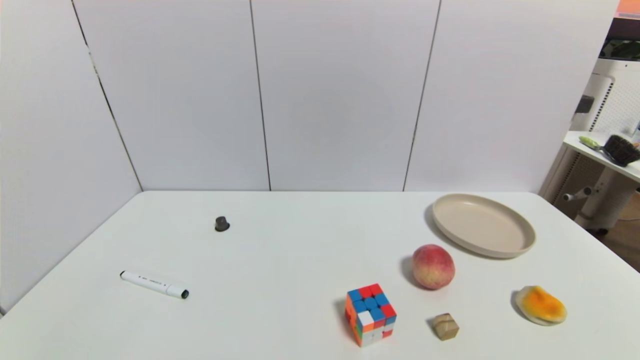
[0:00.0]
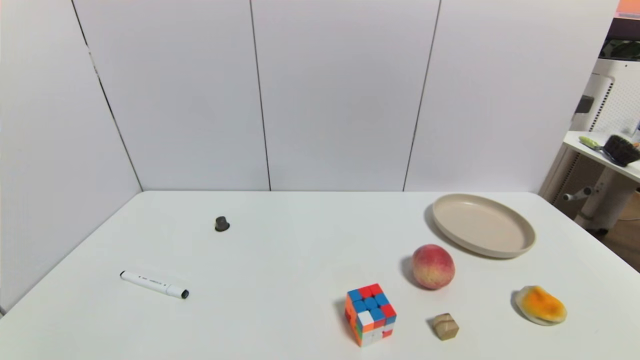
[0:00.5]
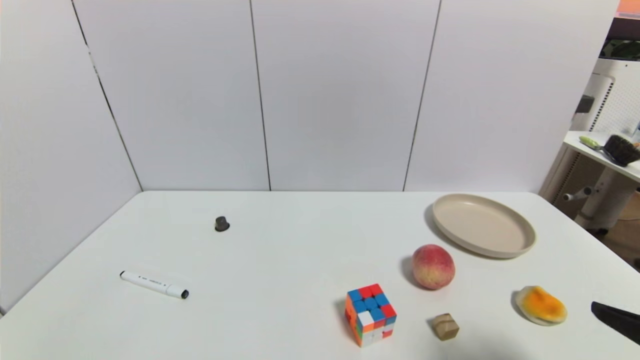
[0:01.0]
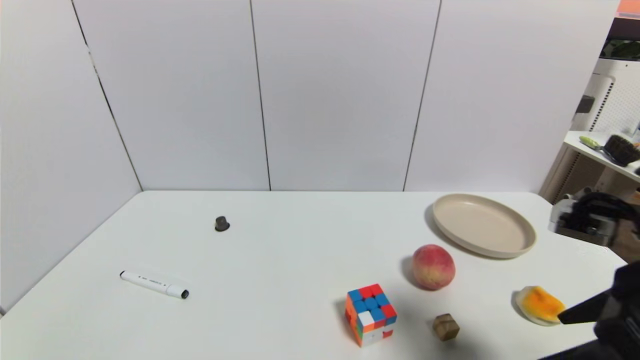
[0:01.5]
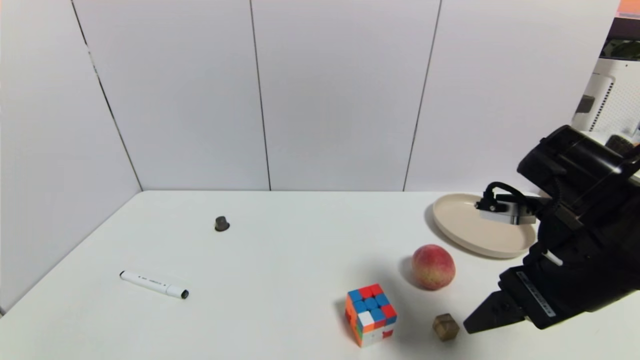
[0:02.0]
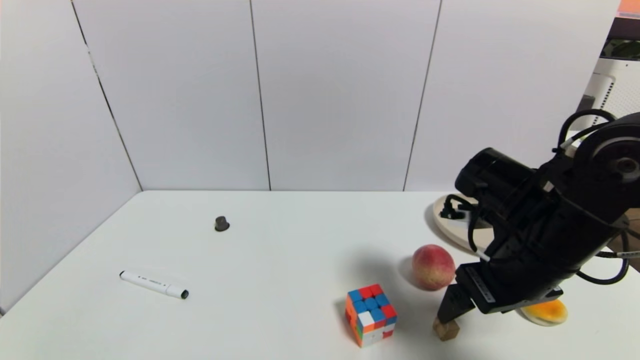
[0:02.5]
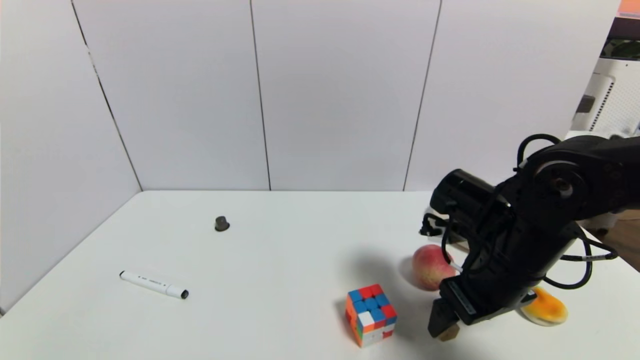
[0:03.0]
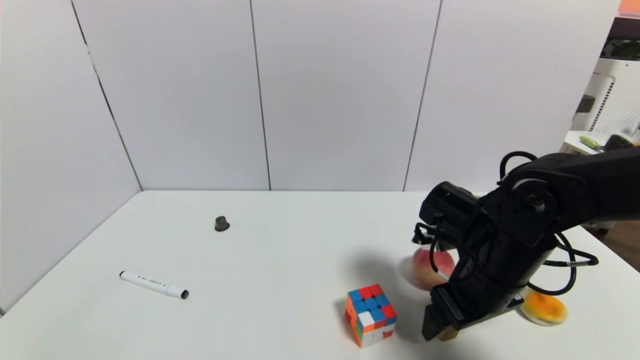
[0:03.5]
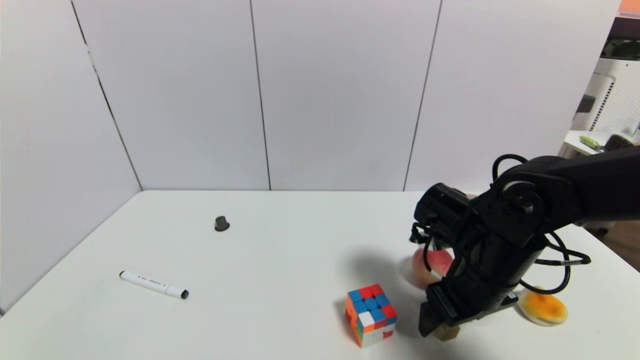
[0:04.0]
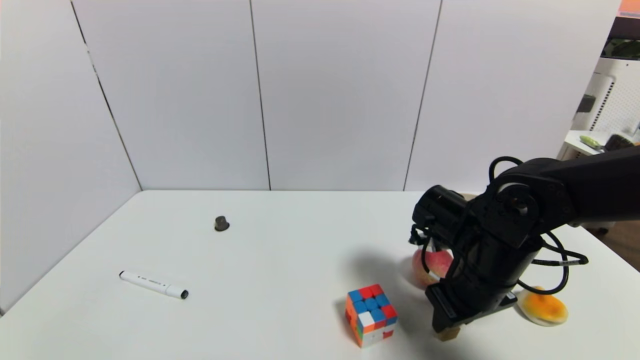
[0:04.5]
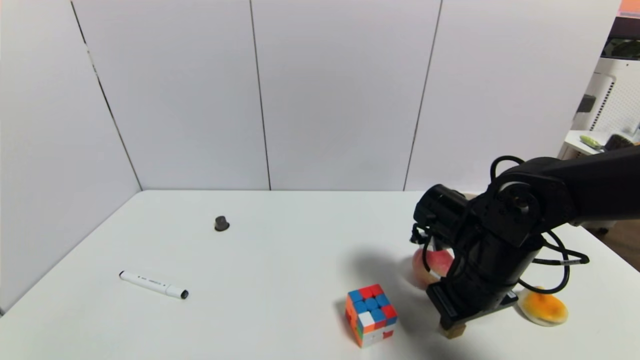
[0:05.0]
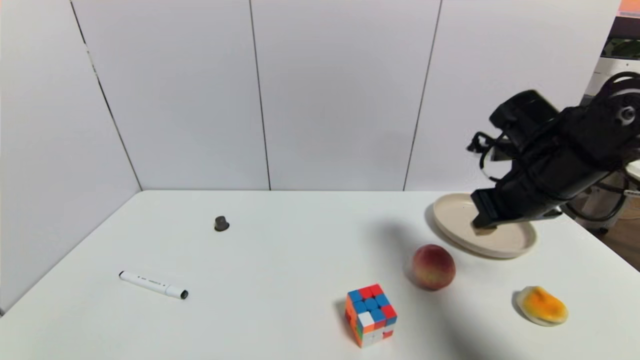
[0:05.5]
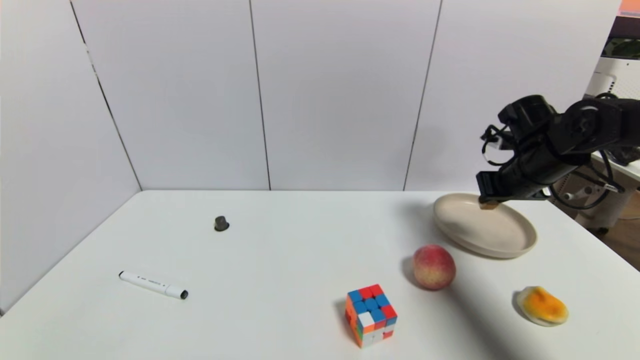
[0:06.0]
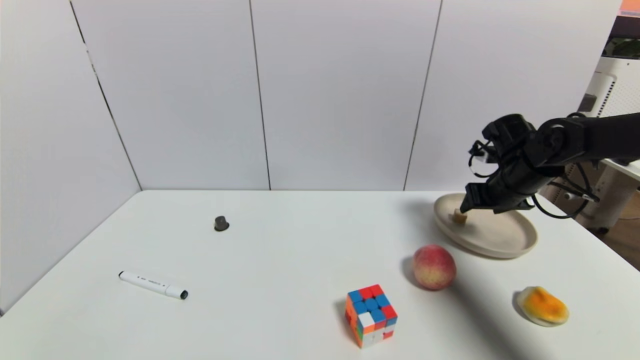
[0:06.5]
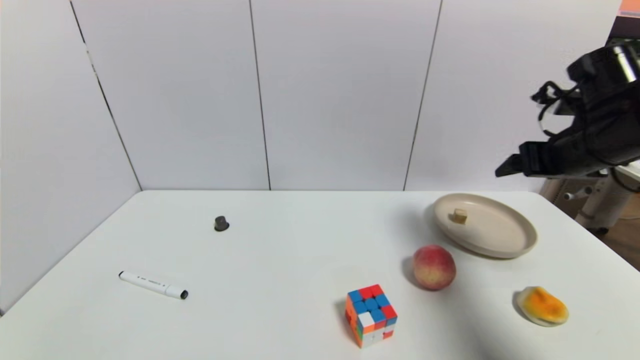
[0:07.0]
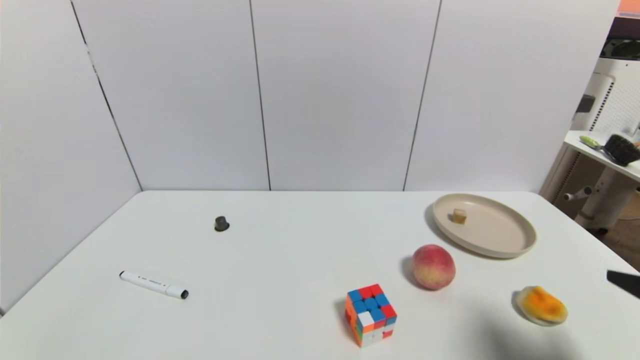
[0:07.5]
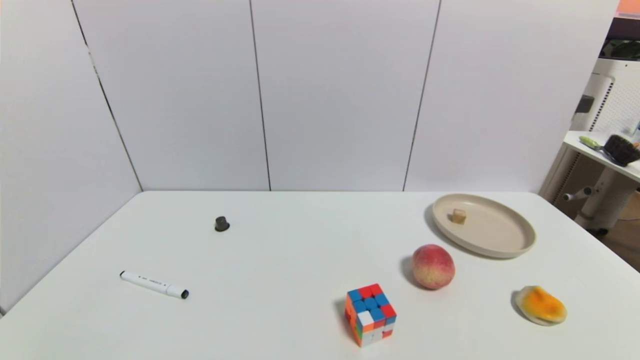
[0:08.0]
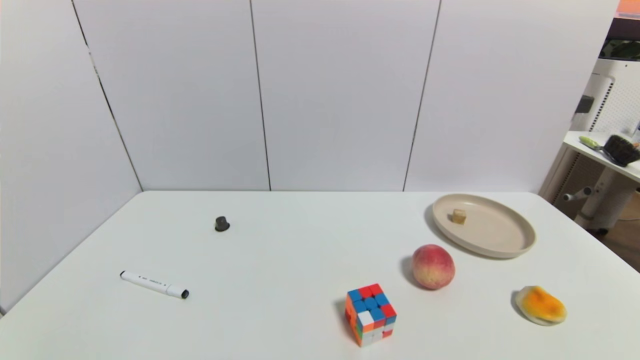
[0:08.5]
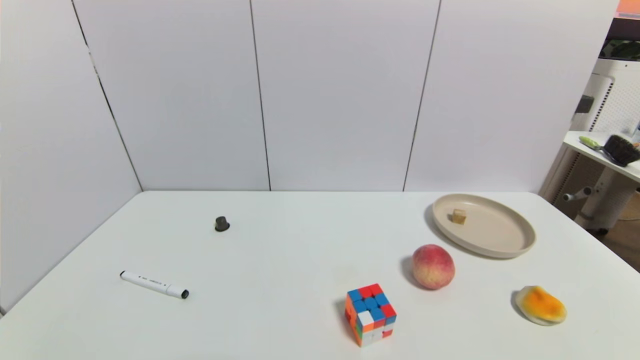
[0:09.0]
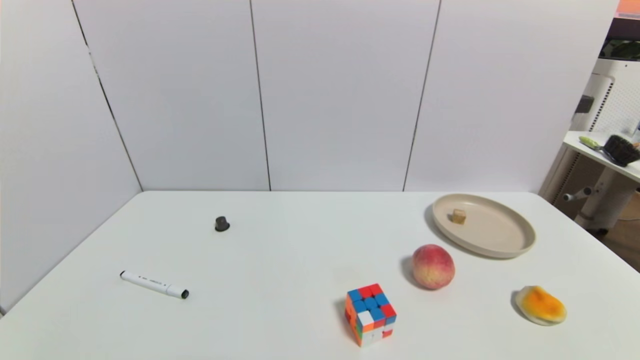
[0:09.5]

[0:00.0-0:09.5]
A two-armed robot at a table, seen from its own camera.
Task of the whole recording: use a gripper to pick the target object and place on the brown plate.
Step, 0:00.0 to 0:04.5: Grasp the square wooden block with the right gripper.
Step, 0:05.0 to 0:06.5: Place the square wooden block on the brown plate with the right gripper.
0:00.0 to 0:02.0: The right gripper shifts about 30 cm forward, upward and to the left.
0:02.0 to 0:04.0: The right gripper shifts approximately 10 cm downward and forward.
0:04.0 to 0:05.5: The right gripper shifts roughly 15 cm upward, to the right and forward, and closes its fingers.
0:05.5 to 0:07.5: The right gripper travels backward by about 20 cm, and opens its fingers.
0:07.5 to 0:09.5: The right gripper travels downward and backward by about 15 cm.
